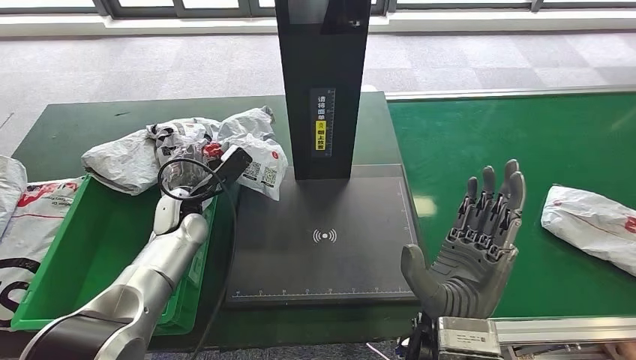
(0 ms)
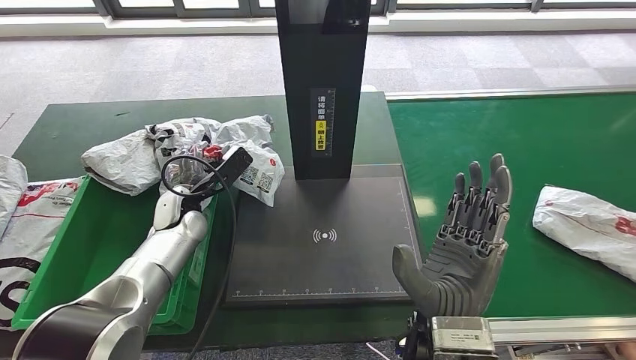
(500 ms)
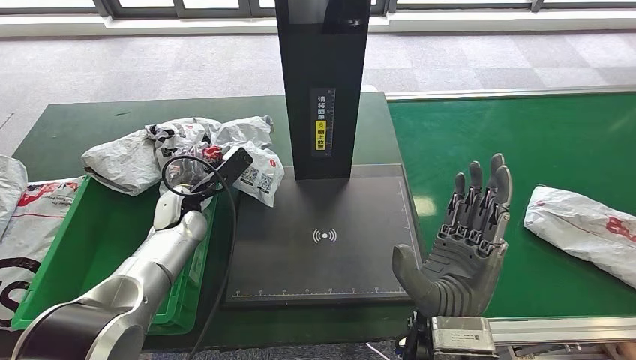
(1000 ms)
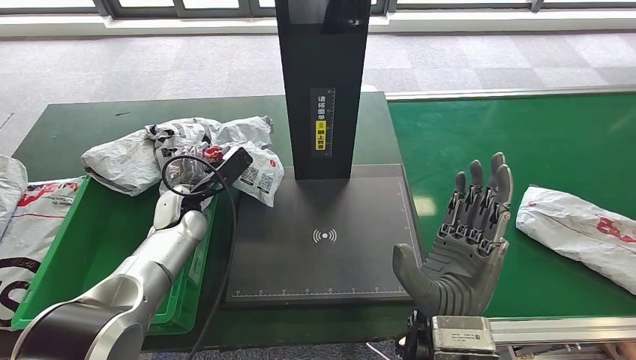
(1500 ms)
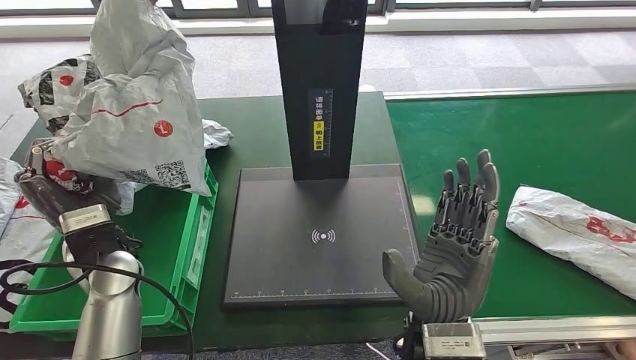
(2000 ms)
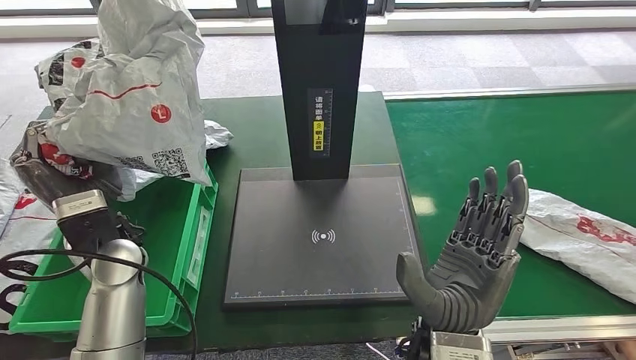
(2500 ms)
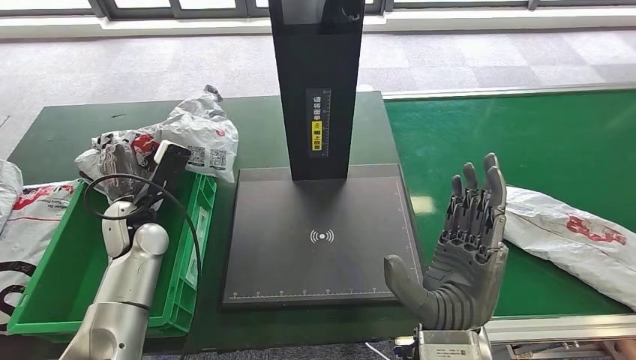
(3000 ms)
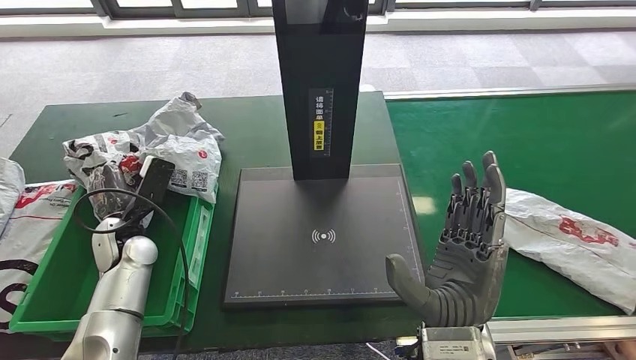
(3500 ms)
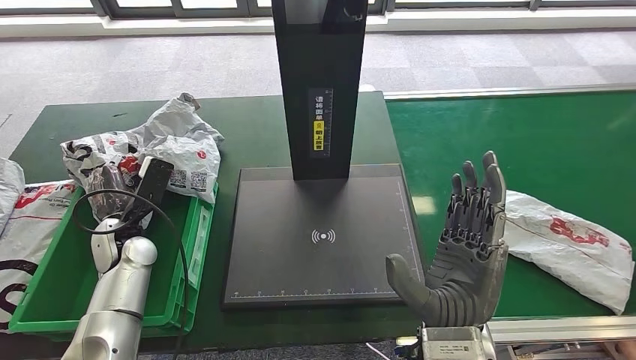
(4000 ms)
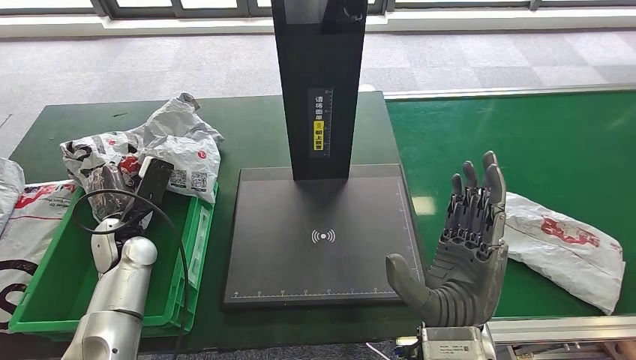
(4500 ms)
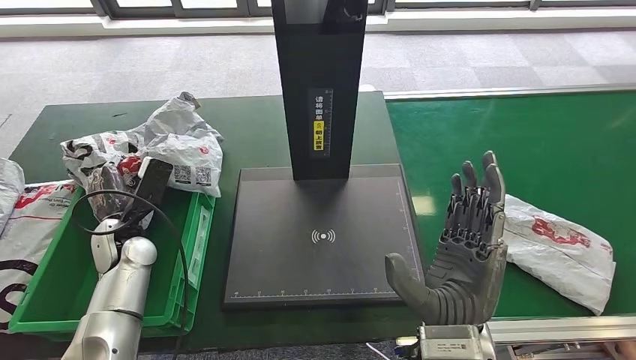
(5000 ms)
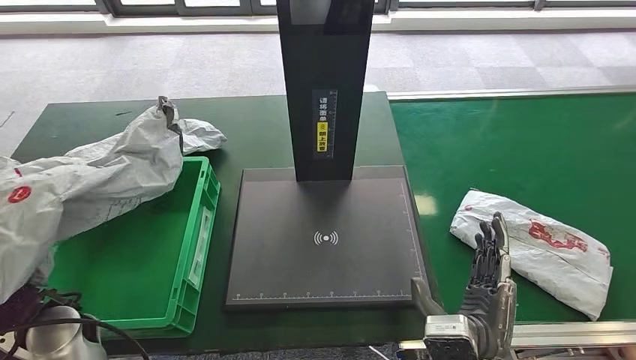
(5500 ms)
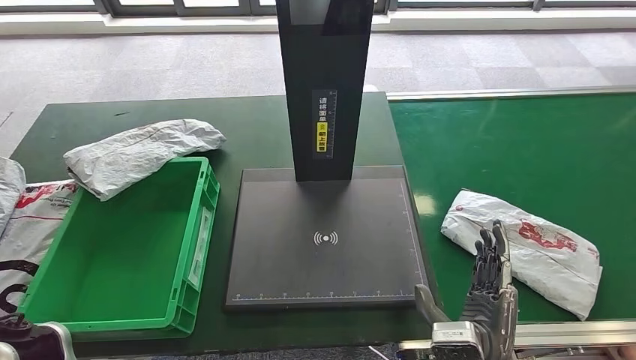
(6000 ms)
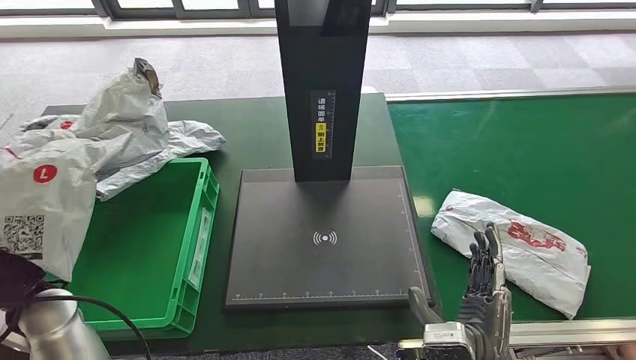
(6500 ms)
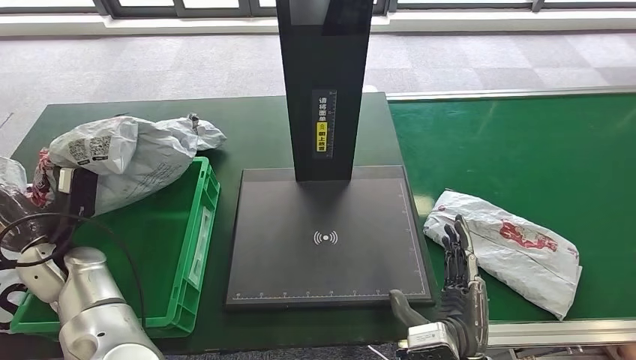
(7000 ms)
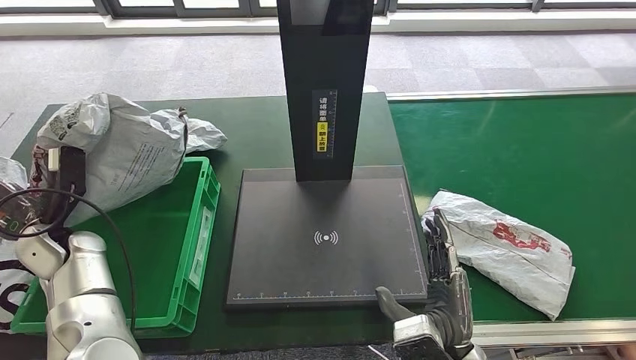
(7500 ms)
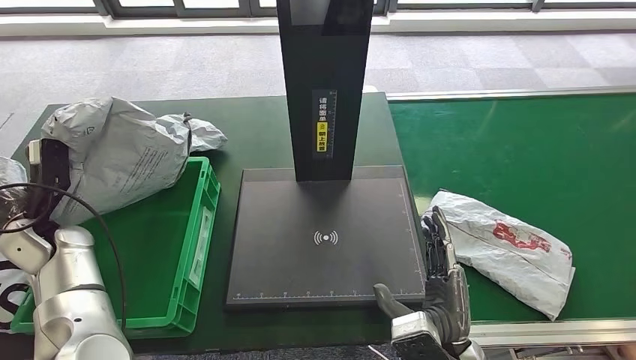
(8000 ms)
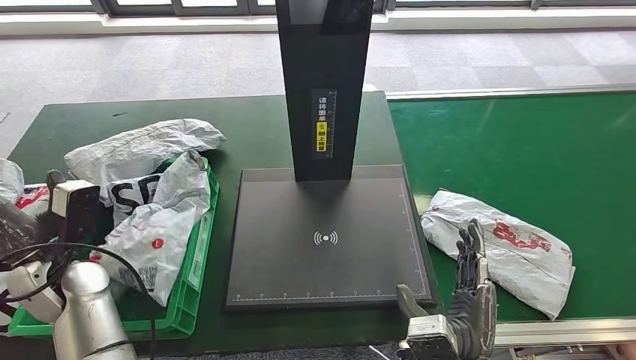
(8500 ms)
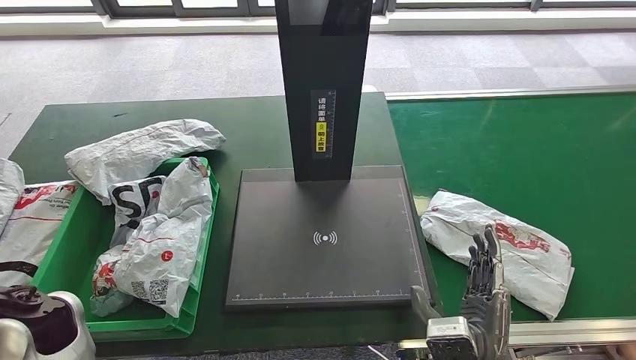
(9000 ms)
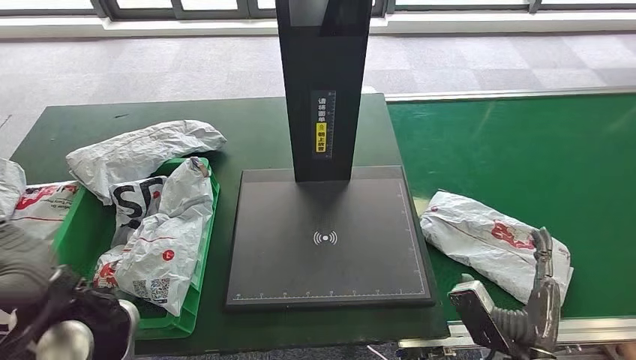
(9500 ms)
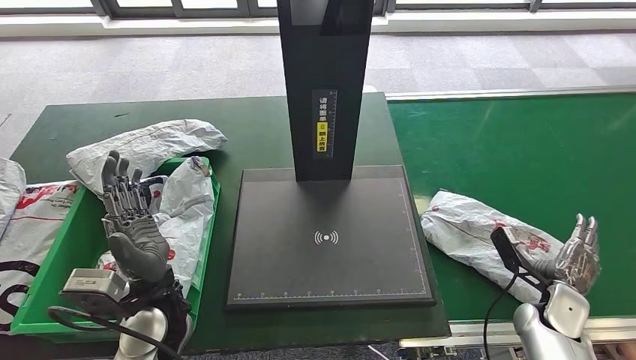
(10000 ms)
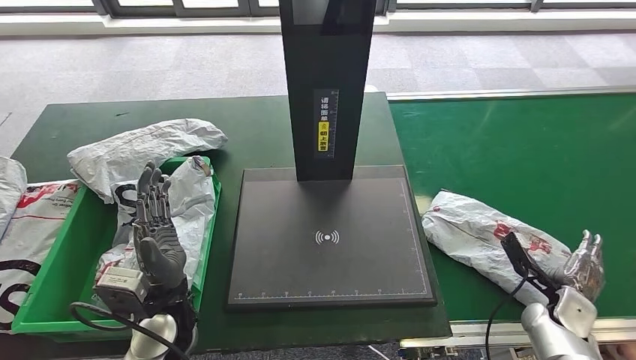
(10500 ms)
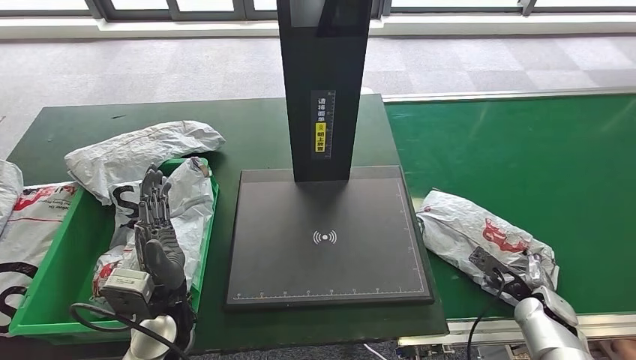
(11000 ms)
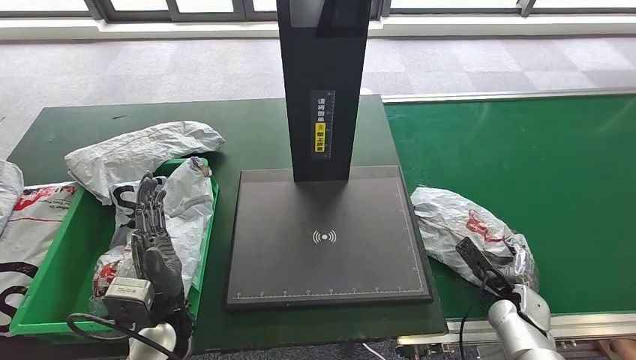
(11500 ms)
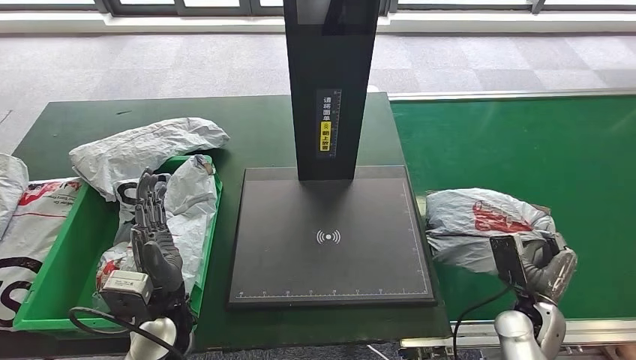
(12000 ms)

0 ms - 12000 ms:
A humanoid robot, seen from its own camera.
Step, 0 ms - 10500 ms: Place the parcel into the delivery box.

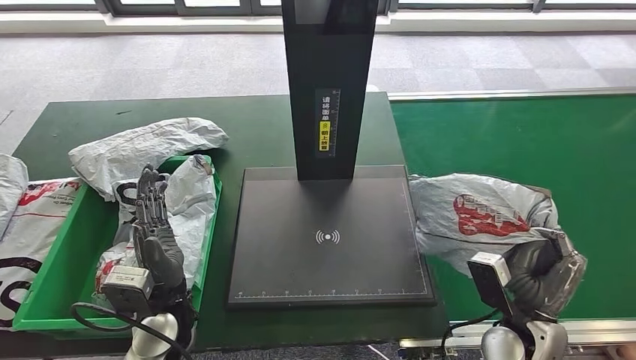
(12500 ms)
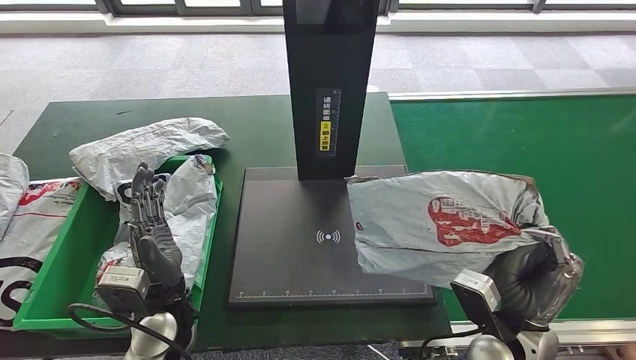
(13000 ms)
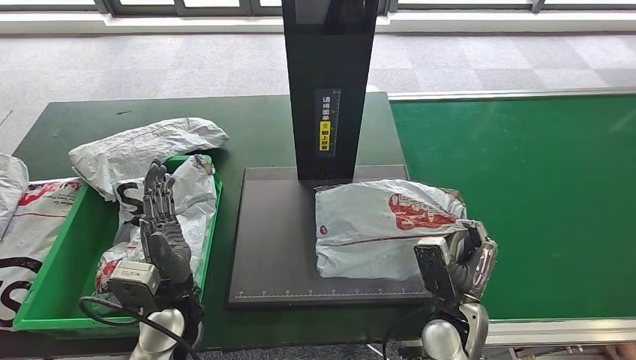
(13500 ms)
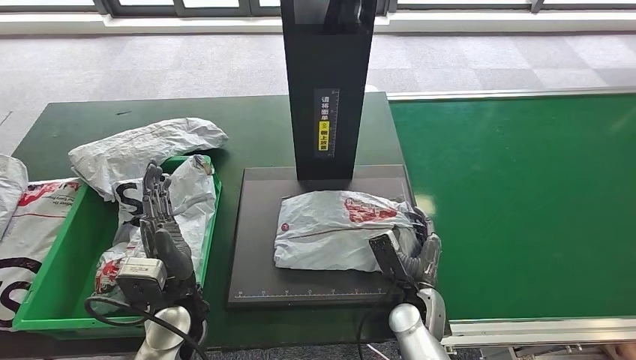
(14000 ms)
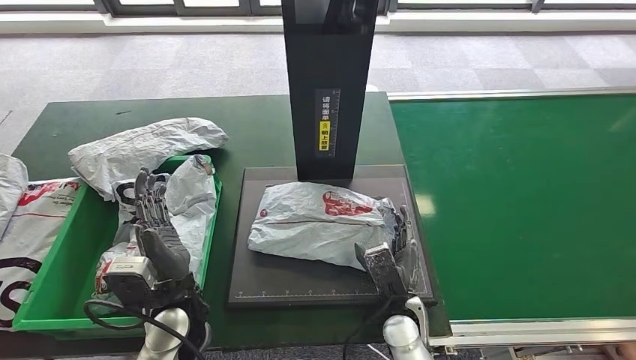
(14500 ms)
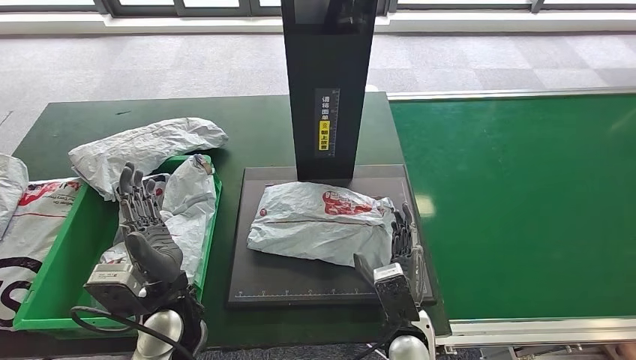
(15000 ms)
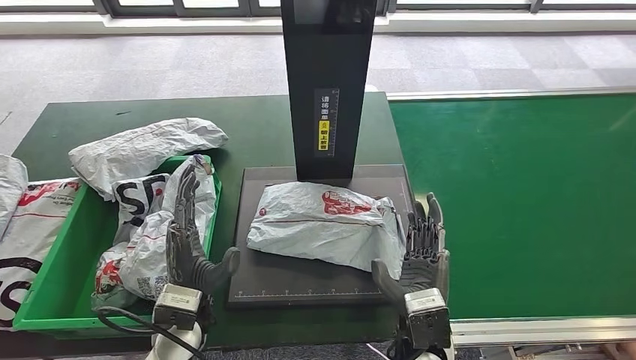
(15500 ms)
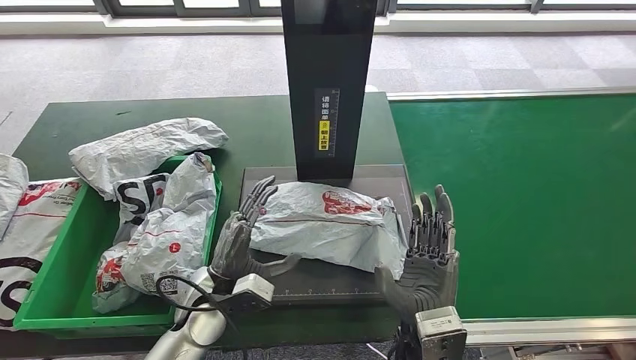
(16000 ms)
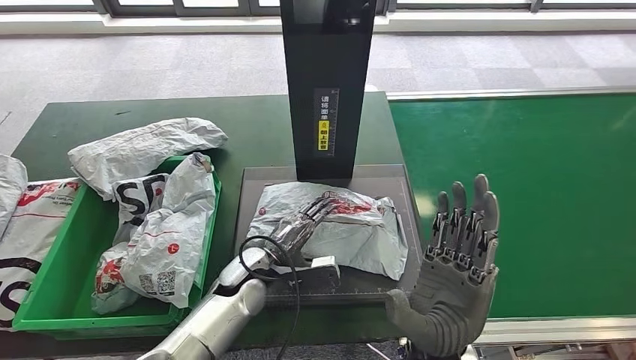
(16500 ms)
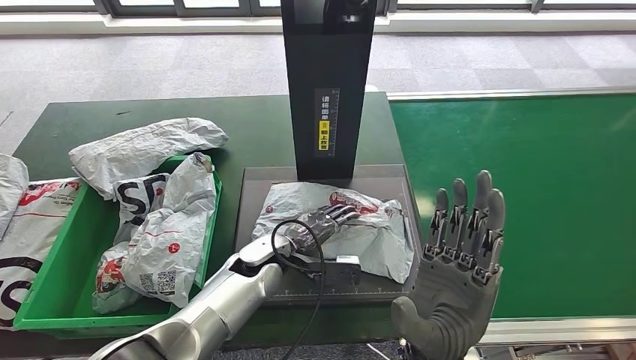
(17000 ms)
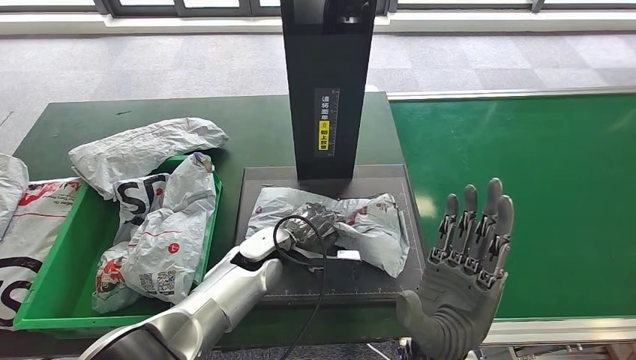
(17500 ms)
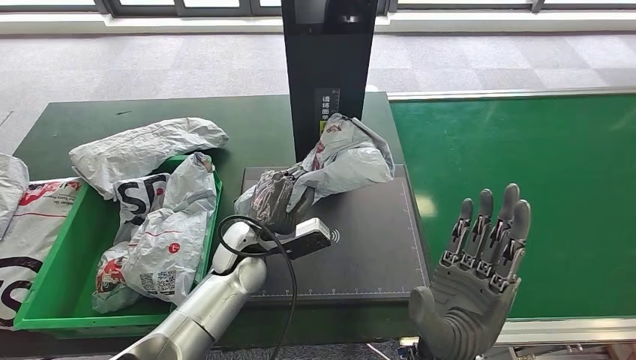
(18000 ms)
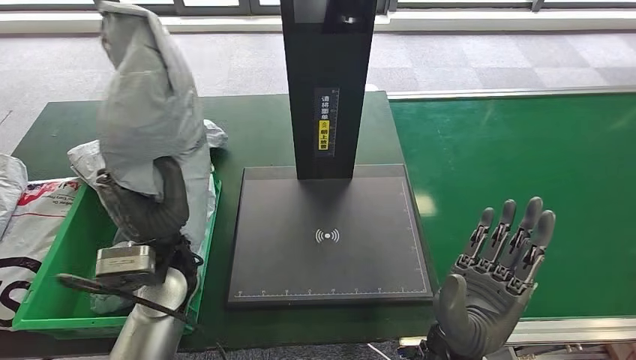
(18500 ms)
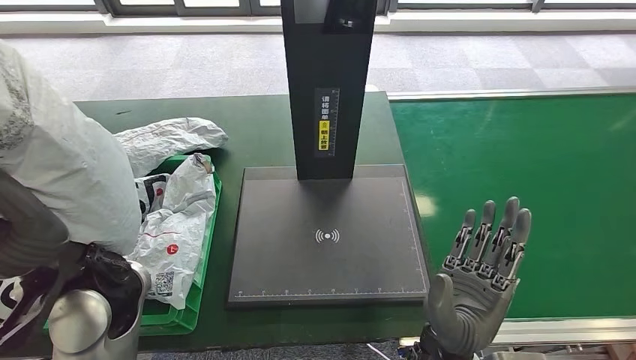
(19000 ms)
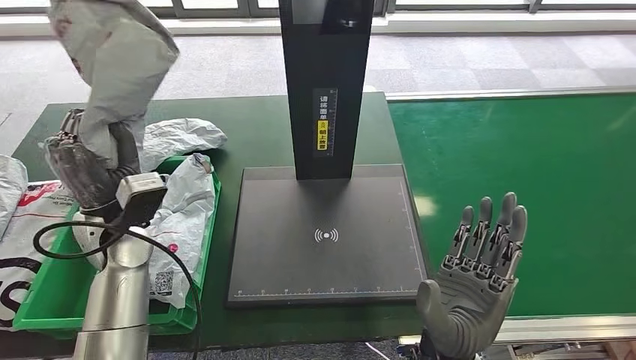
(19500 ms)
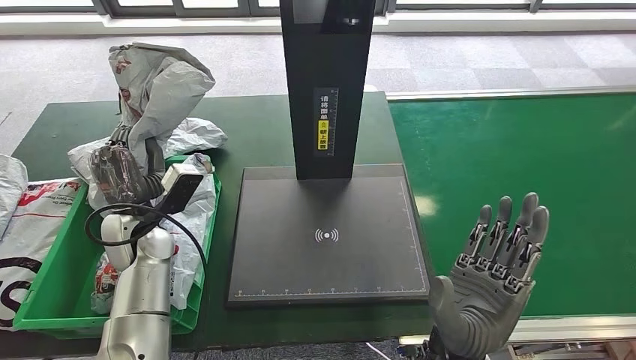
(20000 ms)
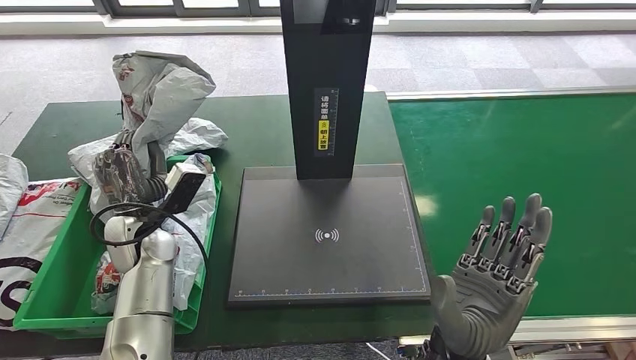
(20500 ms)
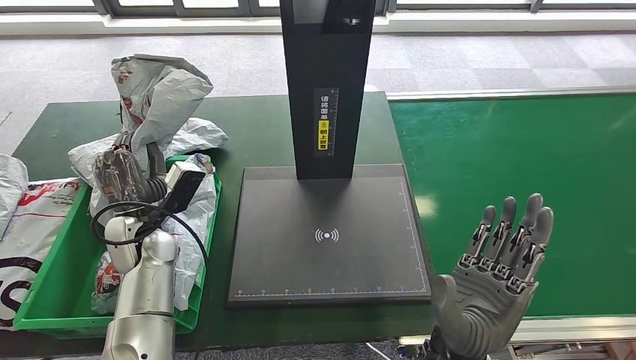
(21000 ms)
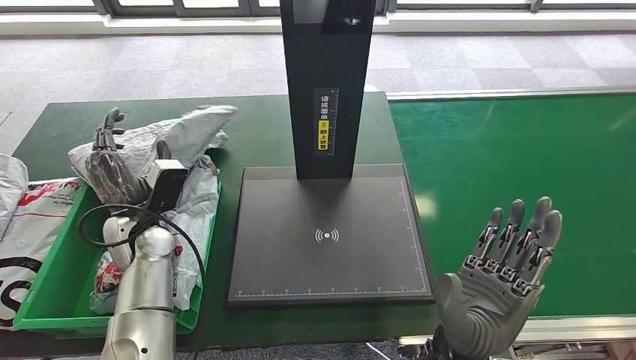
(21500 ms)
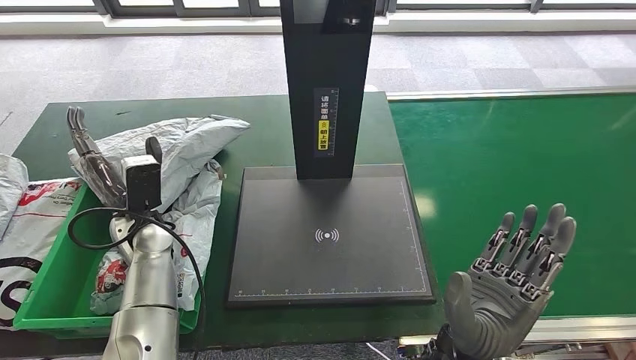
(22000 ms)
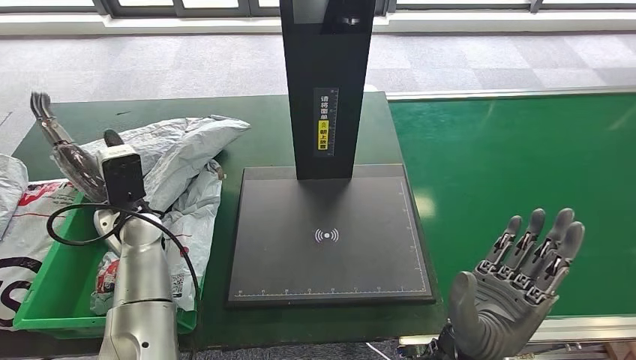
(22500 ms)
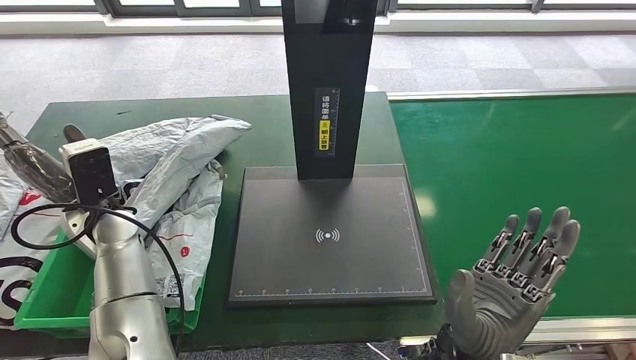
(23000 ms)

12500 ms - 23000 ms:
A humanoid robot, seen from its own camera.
Step, 13000 ms - 15000 ms: Place the parcel onto the inbound machine.
Step, 15500 ms - 18500 ms: Pick up the parcel from the inbound machine.
Step, 19000 ms - 23000 ms: Place the parcel into the delivery box.
12500 ms - 14500 ms: The right hand shifts some 15 cm to the left.
14500 ms - 16500 ms: The left hand is displaced to the right and forward by some 10 cm; the right hand shifts some 15 cm upward.
21000 ms - 23000 ms: The left hand shifts by some 5 cm.
